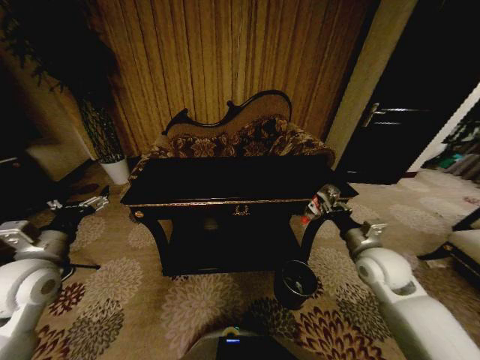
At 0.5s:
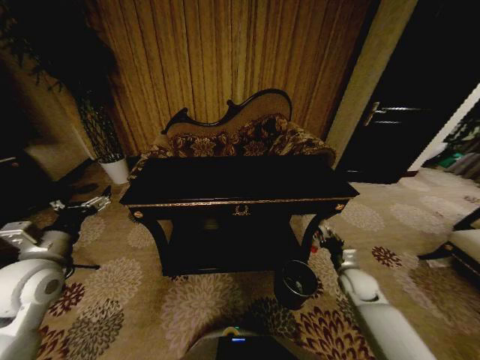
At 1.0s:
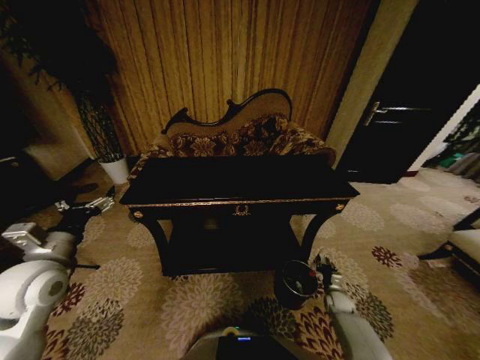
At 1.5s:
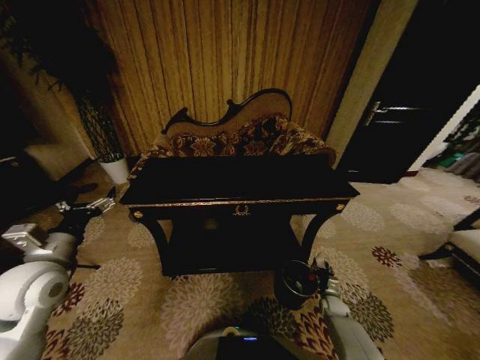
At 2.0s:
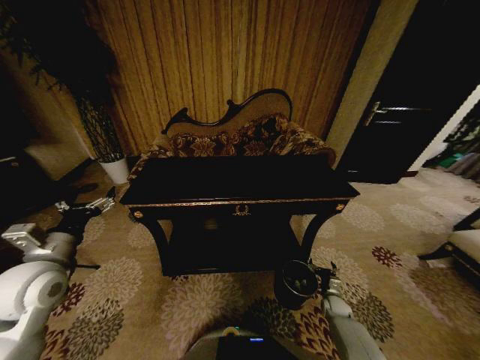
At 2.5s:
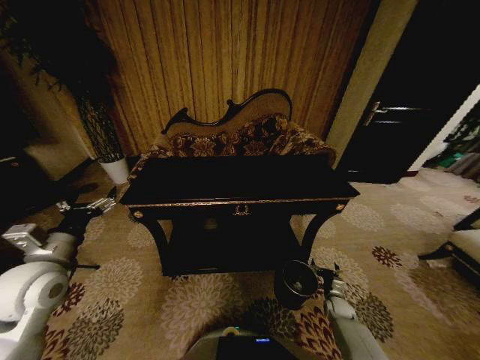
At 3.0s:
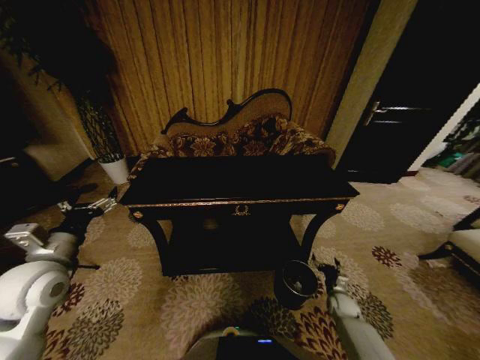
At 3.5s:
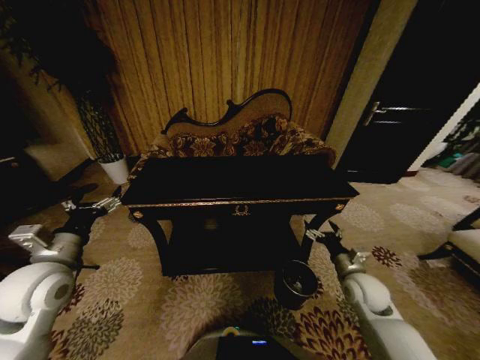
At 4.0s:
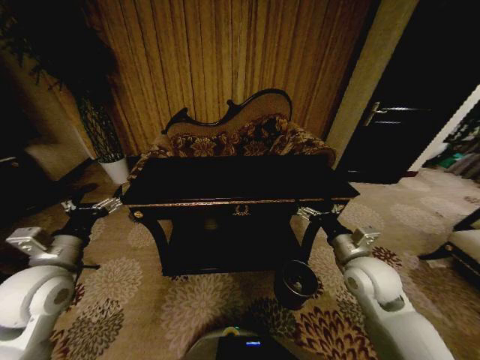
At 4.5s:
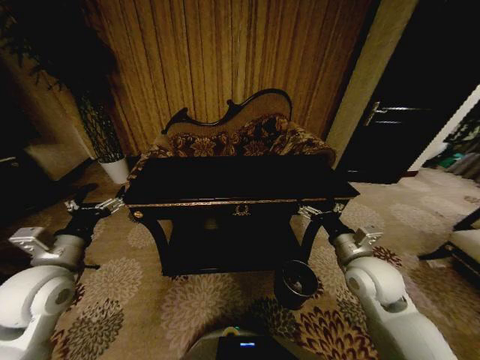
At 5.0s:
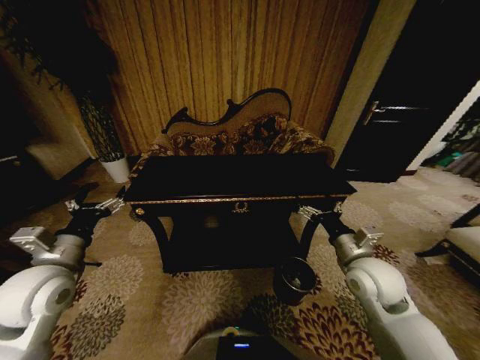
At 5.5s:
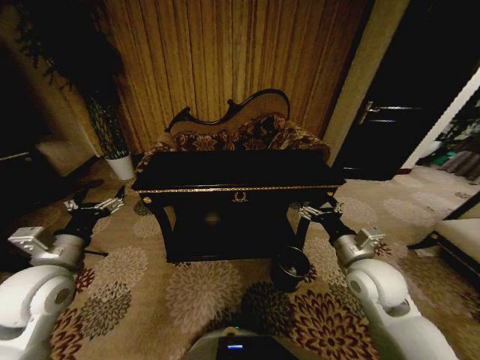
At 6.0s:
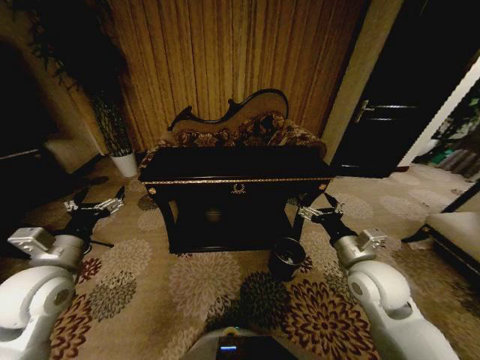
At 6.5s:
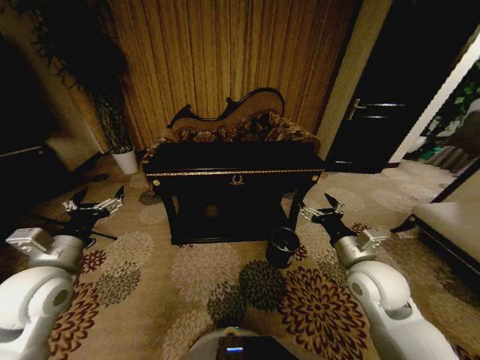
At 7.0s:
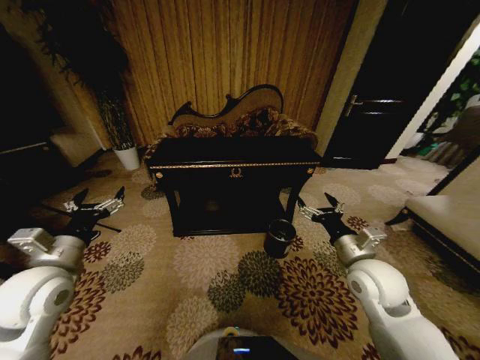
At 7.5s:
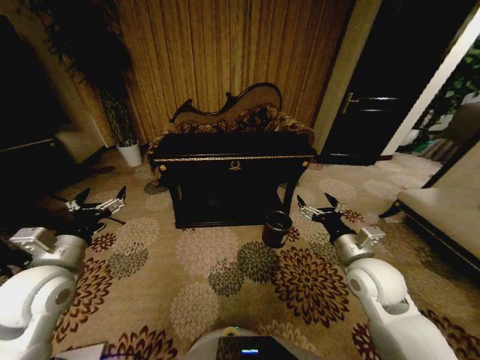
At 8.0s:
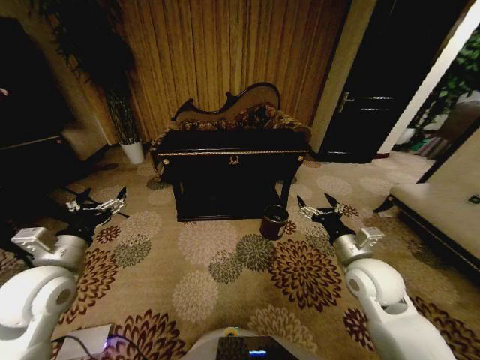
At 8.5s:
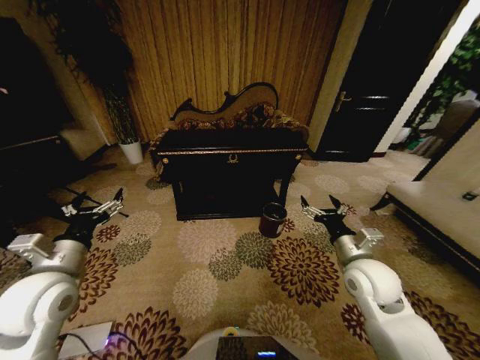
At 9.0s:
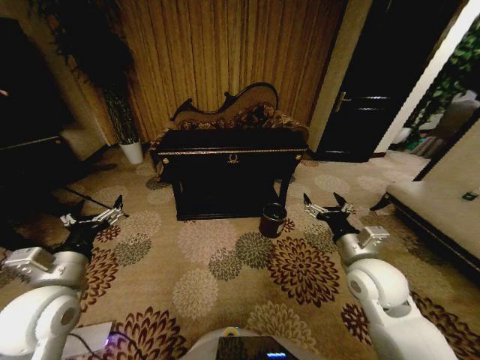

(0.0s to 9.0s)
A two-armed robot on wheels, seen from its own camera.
Task of the whole recording: Move to the front of the table and place the trash on the table into the trash bin.
0.0s - 2.0s: The right gripper is displaced downward by approximately 35 cm, and opens its fingers.
2.0s - 4.5s: The right gripper moves upward, approximately 35 cm.

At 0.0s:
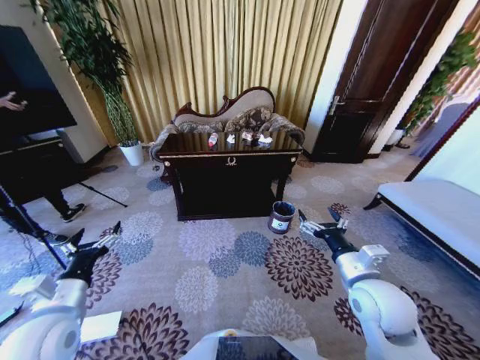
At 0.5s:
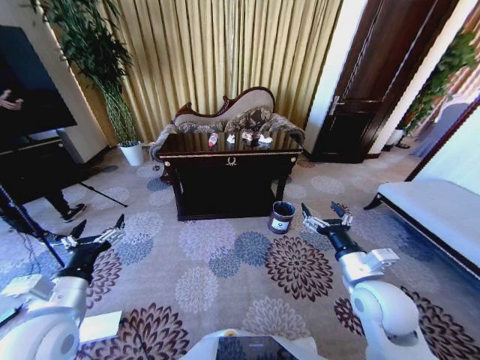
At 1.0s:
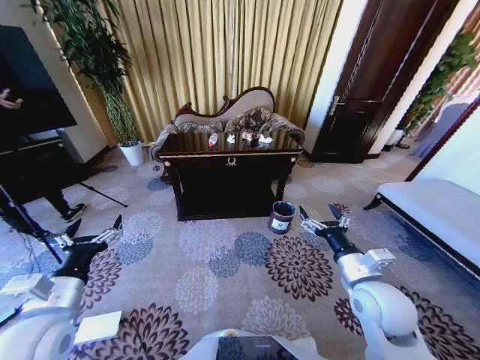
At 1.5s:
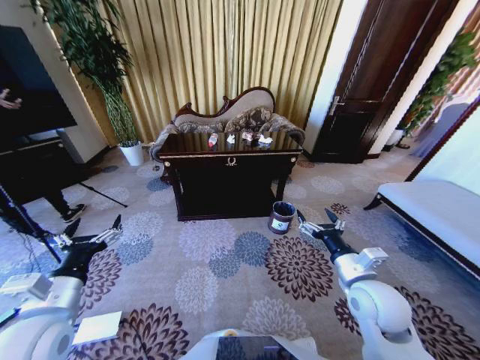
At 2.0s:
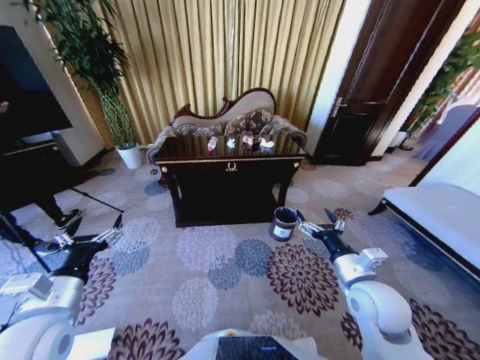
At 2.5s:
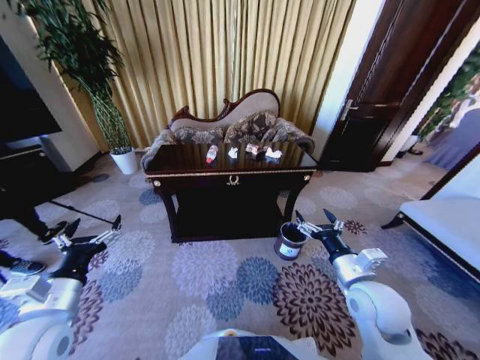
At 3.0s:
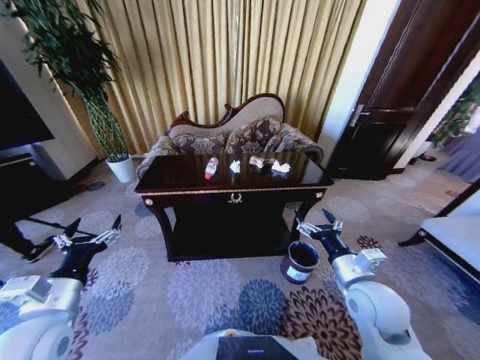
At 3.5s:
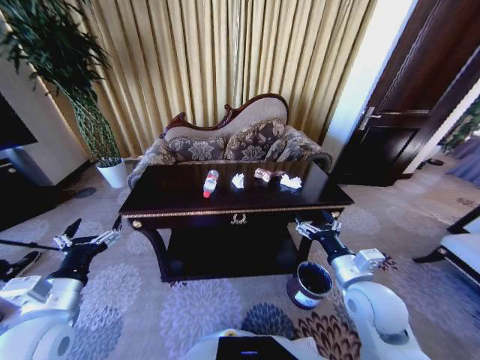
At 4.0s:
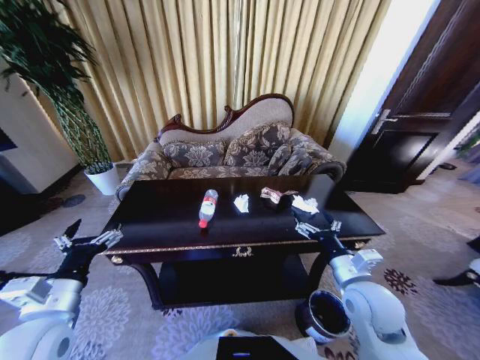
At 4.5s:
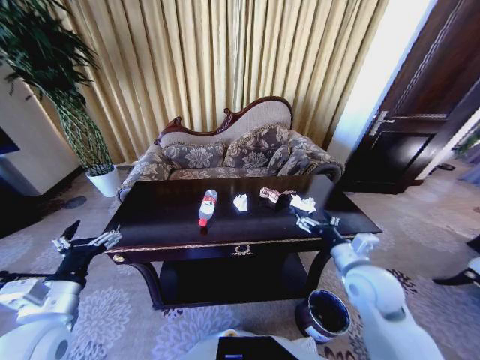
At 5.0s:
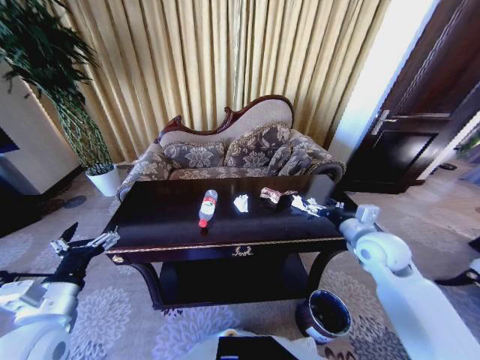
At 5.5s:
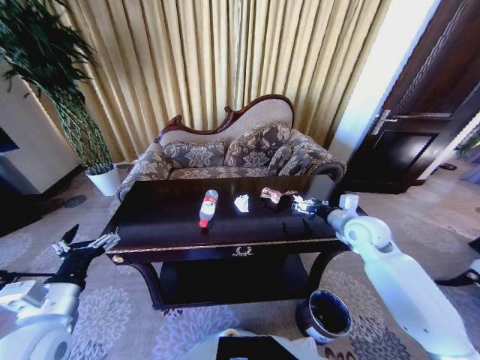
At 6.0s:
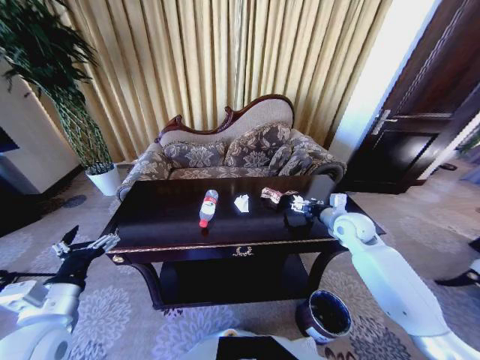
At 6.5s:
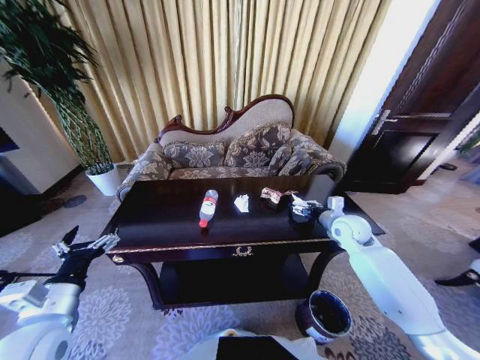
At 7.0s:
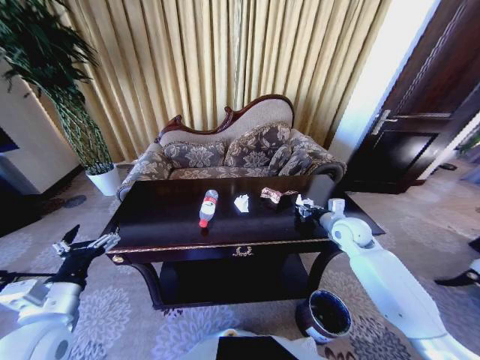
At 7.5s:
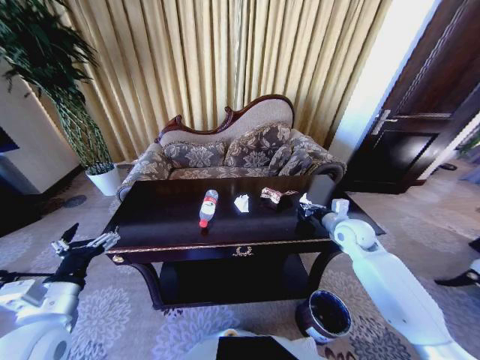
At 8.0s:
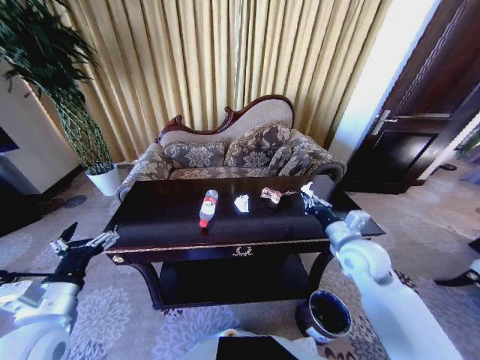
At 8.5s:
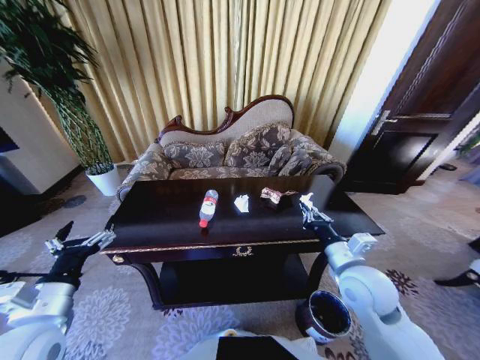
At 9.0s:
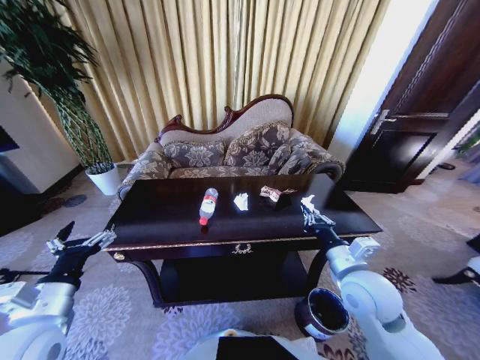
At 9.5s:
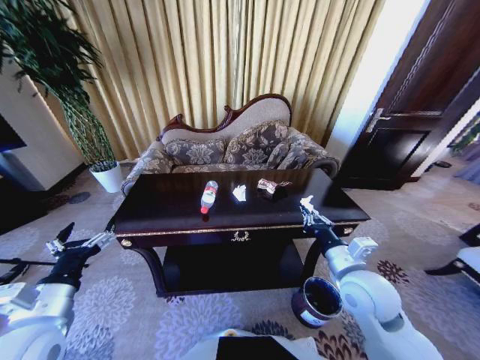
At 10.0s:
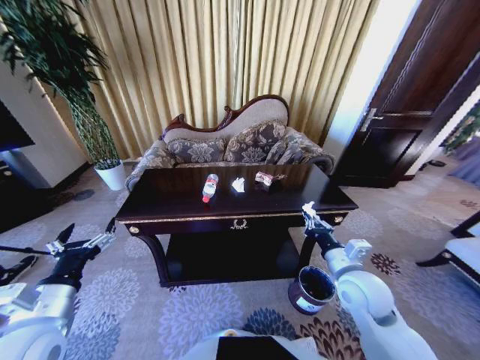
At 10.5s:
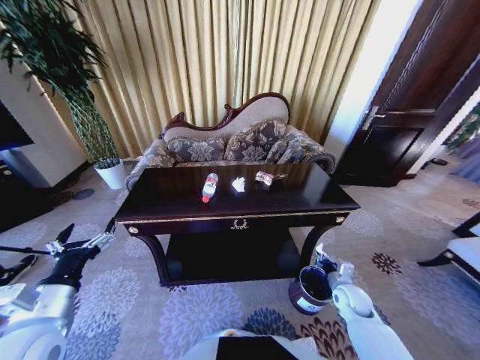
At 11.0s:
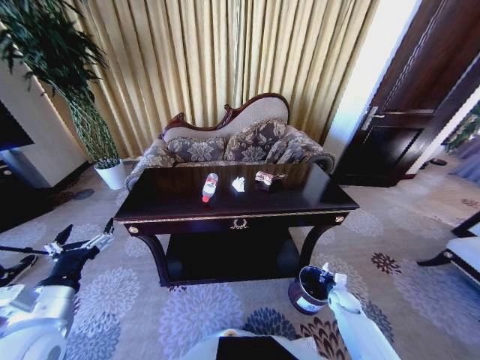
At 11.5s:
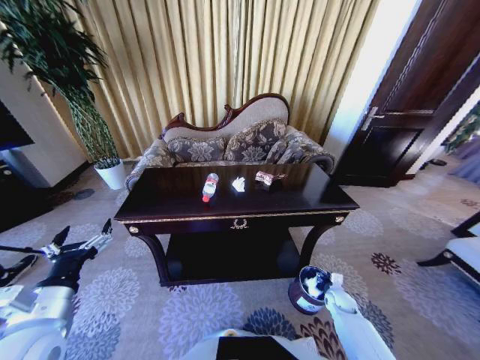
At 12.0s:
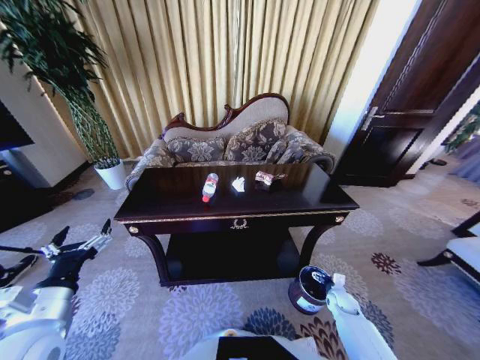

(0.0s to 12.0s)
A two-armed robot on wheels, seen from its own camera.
Task of the whole recording: Move to the front of the table and place the trash on the table into the trash bin.
4.0s - 6.0s: The right gripper shifts some 20 cm forward.
6.0s - 8.0s: The right gripper shifts approximately 10 cm backward, and closes.
8.0s - 10.0s: The right gripper shifts about 5 cm backward.
10.0s - 12.0s: The right gripper is displaced downward and to the right by roughly 35 cm, and opens up.

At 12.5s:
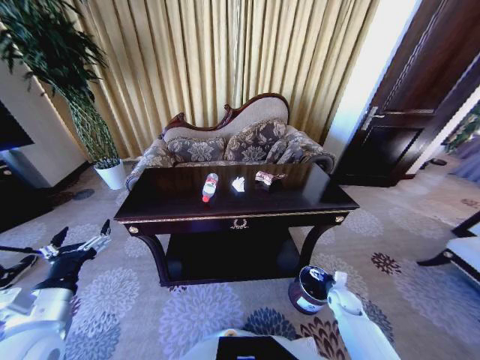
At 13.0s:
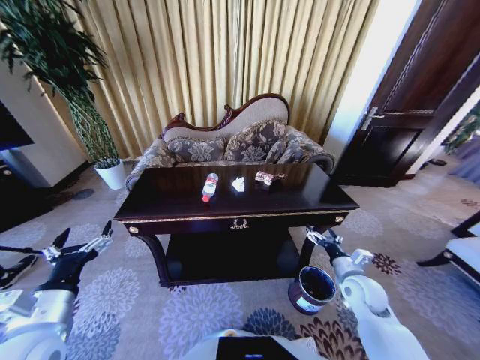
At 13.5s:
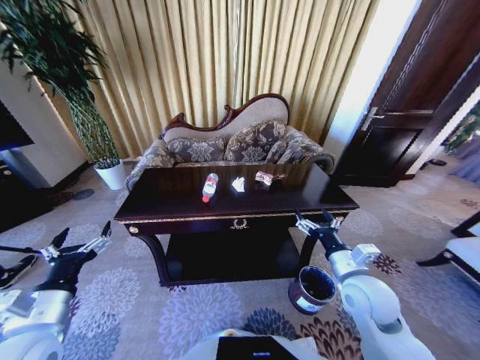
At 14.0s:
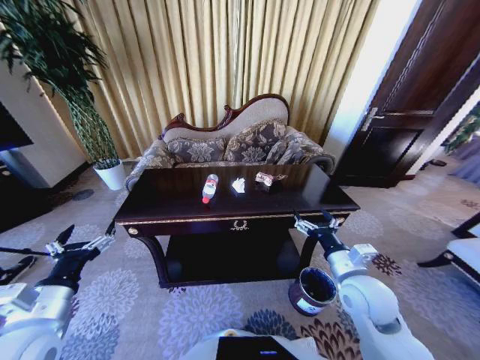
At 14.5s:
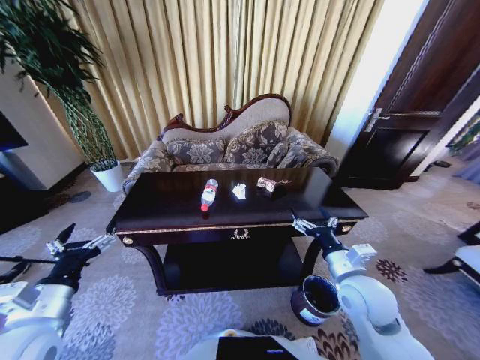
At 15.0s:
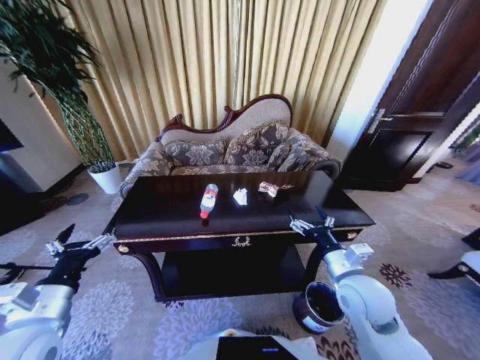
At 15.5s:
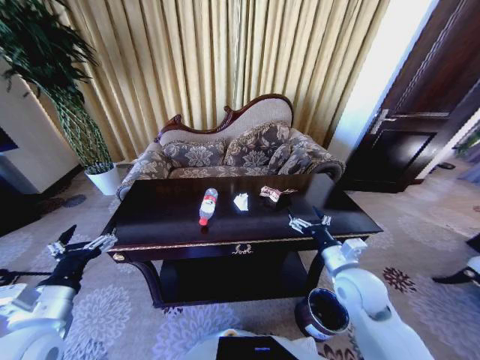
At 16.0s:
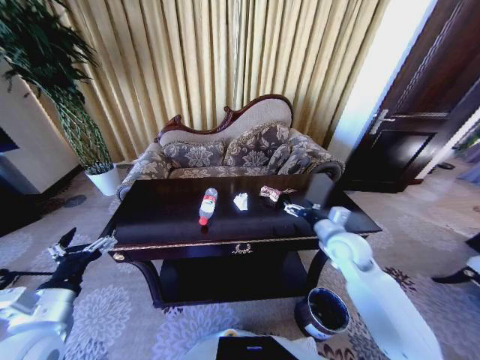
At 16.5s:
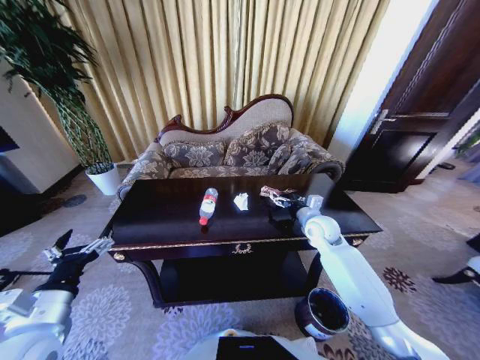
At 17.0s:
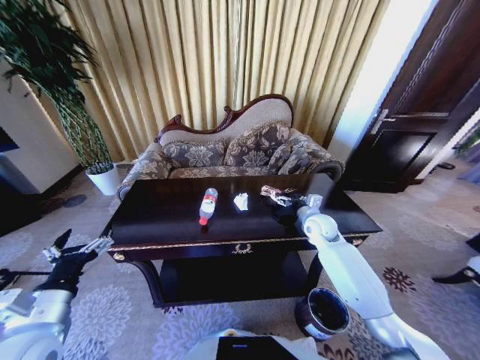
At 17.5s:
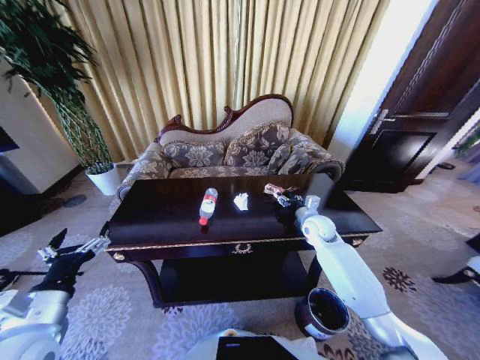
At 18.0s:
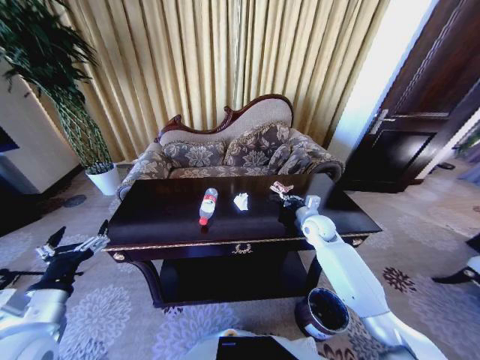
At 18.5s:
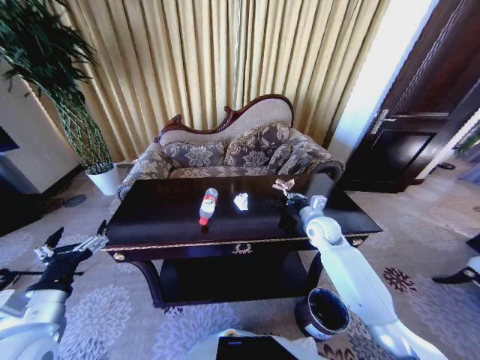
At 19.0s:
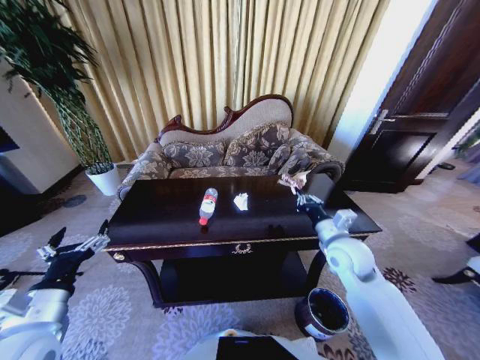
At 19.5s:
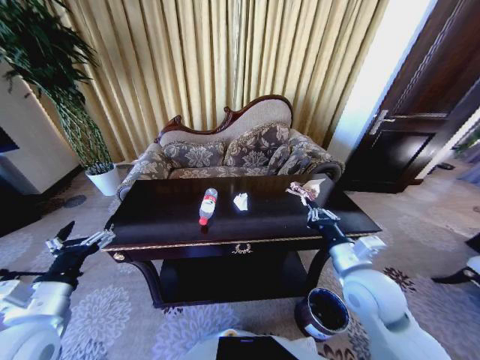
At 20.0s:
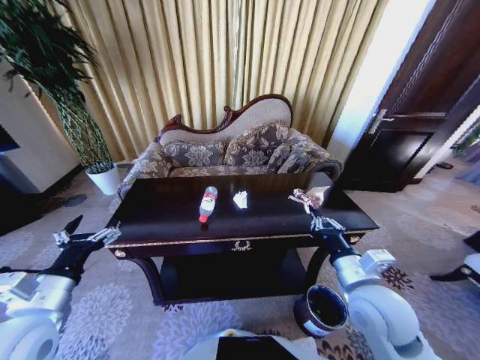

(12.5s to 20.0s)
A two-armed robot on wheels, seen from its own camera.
Task of the whole recording: Move to the front of the table and place the trash on the table into the trash bin.
12.5s - 14.5s: The right gripper heads upward and to the left, covering roughly 30 cm.
14.5s - 16.5s: The right gripper travels forward by about 20 cm.
16.5s - 18.0s: The right gripper closes.
18.0s - 20.0s: The right gripper is displaced backward by approximately 25 cm.
